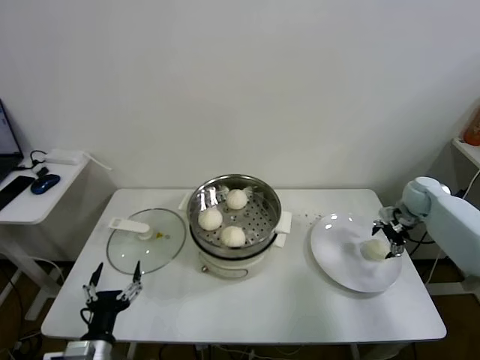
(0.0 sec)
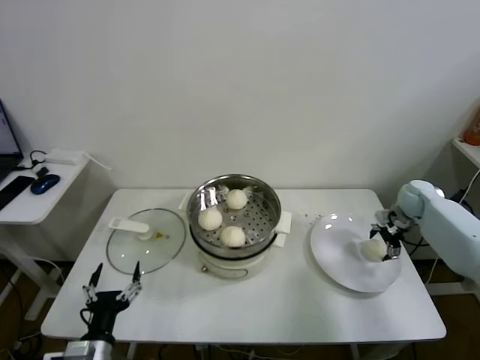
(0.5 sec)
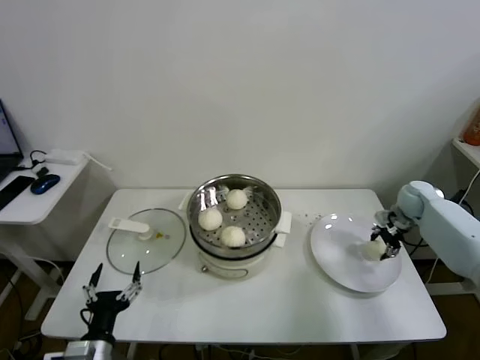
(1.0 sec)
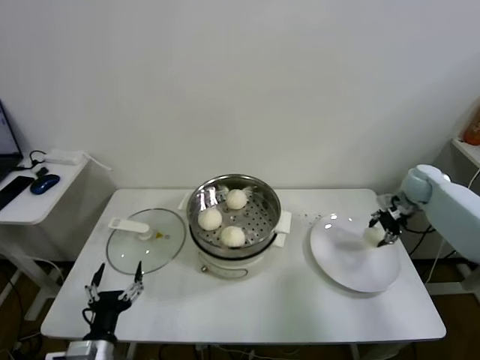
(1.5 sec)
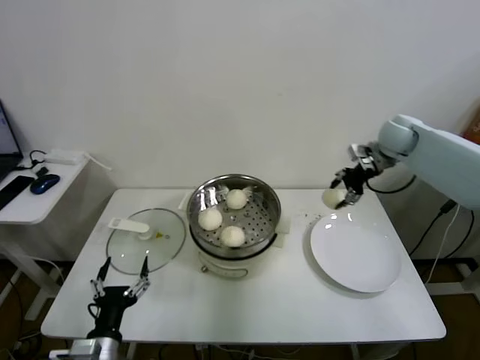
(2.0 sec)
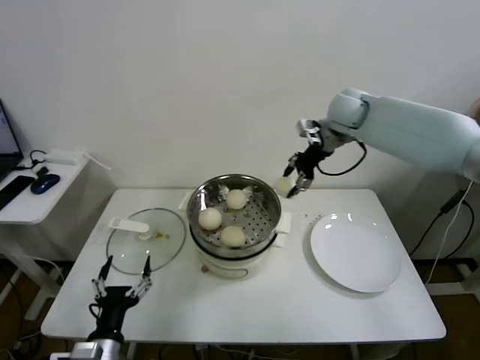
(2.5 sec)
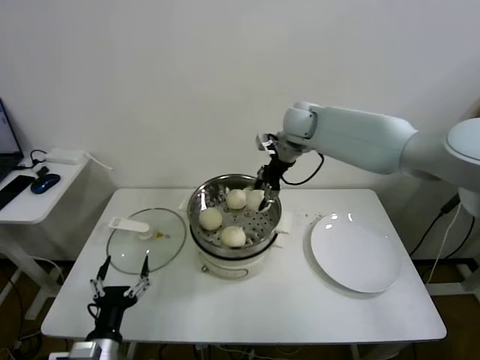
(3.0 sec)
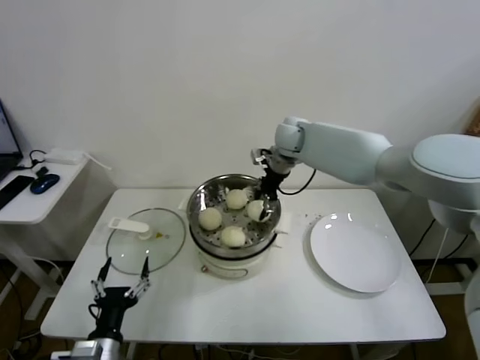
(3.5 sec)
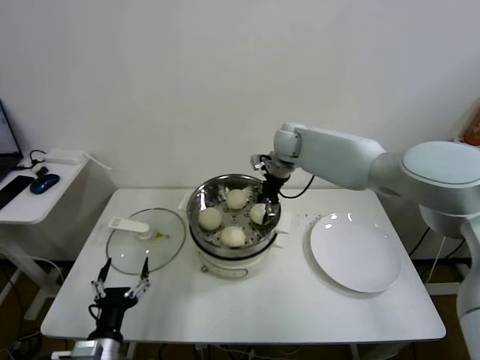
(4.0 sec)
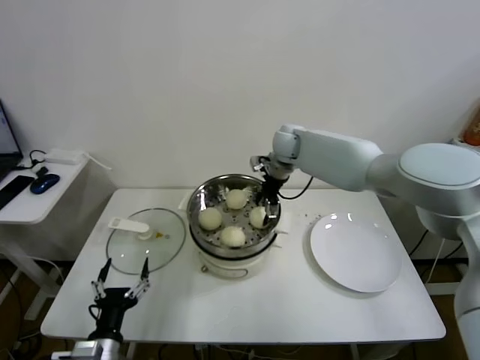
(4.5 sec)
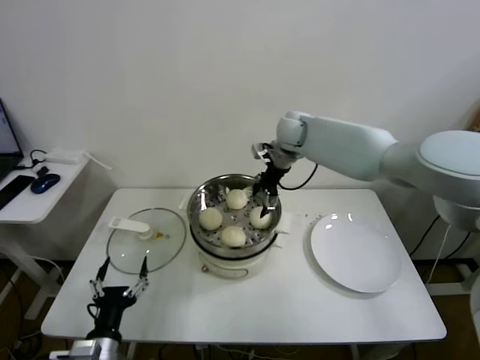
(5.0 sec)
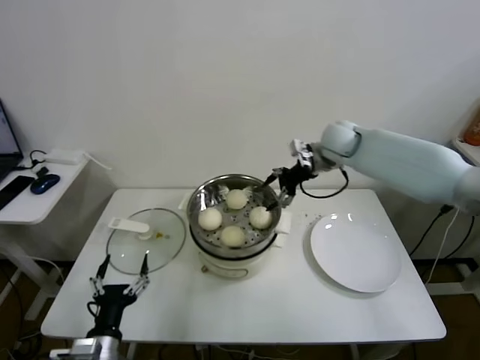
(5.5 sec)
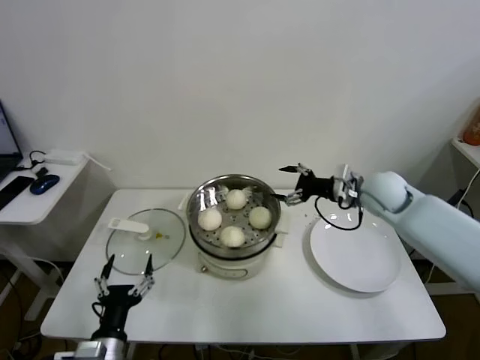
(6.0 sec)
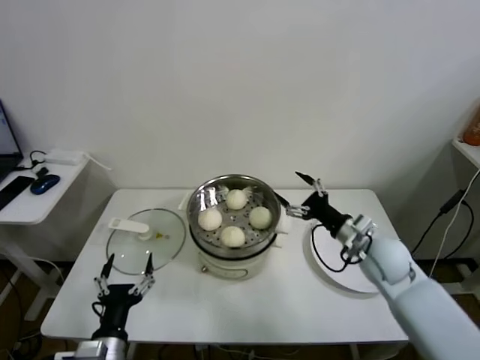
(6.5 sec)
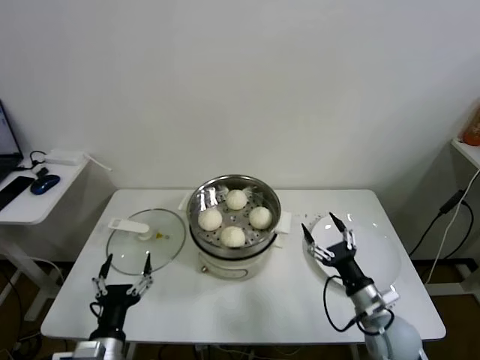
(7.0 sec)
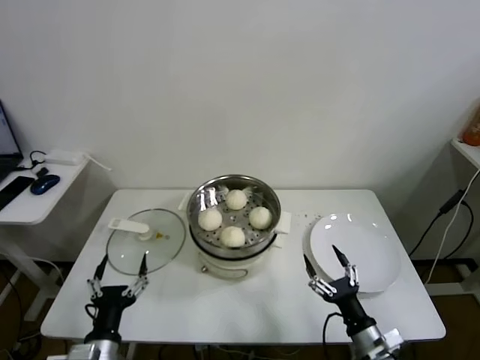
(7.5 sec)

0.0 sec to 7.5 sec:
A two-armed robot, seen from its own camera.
Task of the whole recording: take steamed baozi put them in steamer.
Step, 1.5 sec to 4.5 sec: Place the baozi on the steamer with right gripper.
0.0 sec to 2.0 sec: The right gripper travels upward and to the left by about 20 cm, and closes up.
2.0 sec to 4.0 sec: The right gripper is displaced to the left by approximately 25 cm.
4.0 sec to 5.5 sec: The right gripper travels to the right by roughly 10 cm, and opens up.
5.5 sec to 7.5 sec: The right gripper travels backward and downward by about 50 cm.

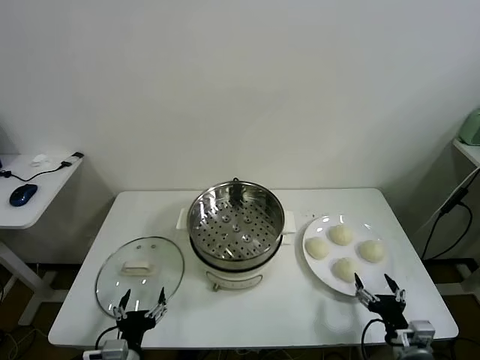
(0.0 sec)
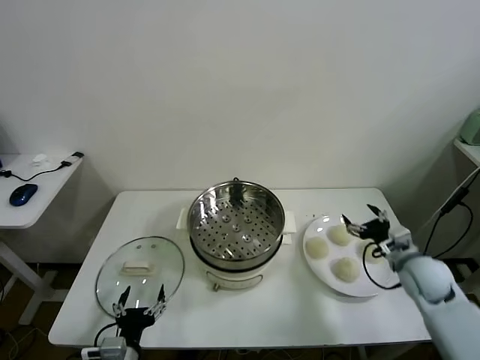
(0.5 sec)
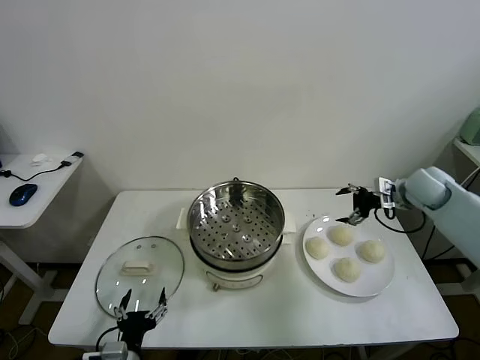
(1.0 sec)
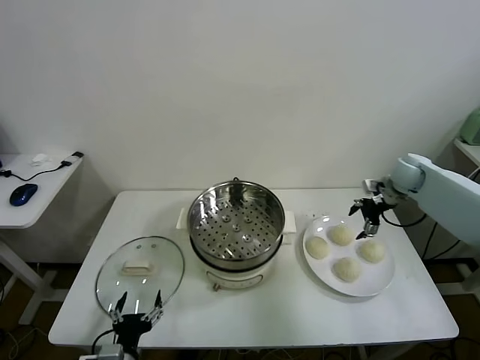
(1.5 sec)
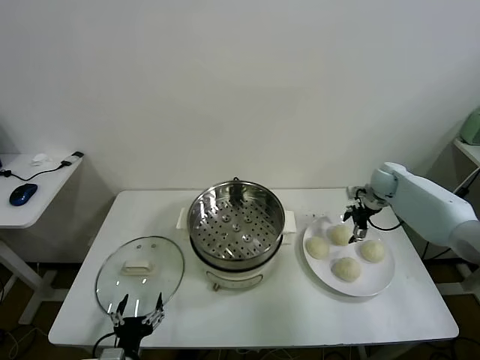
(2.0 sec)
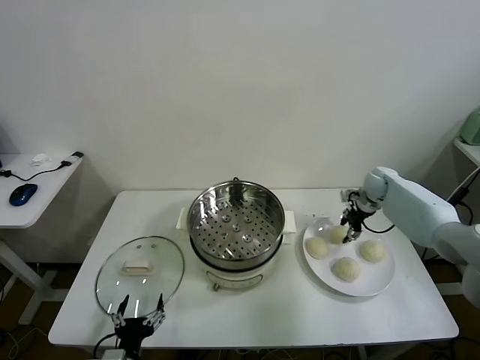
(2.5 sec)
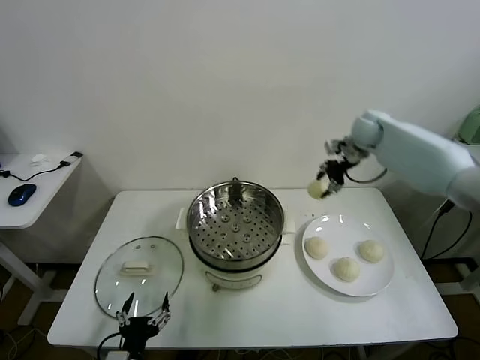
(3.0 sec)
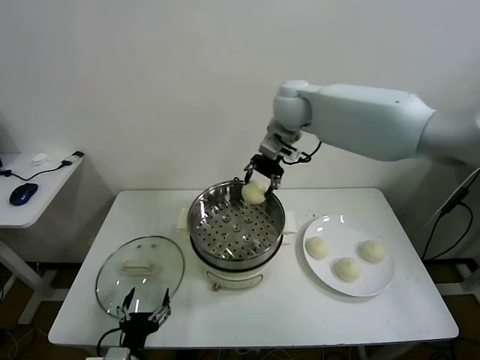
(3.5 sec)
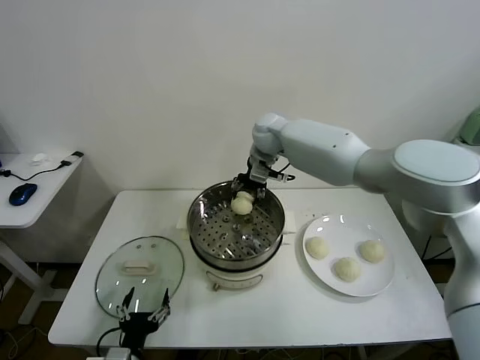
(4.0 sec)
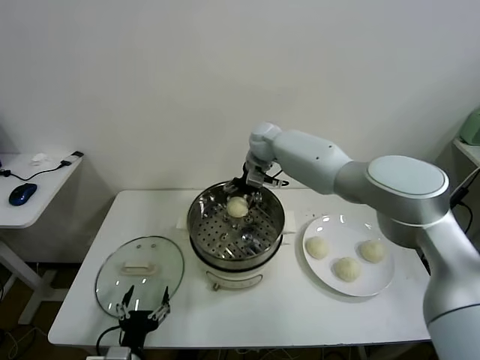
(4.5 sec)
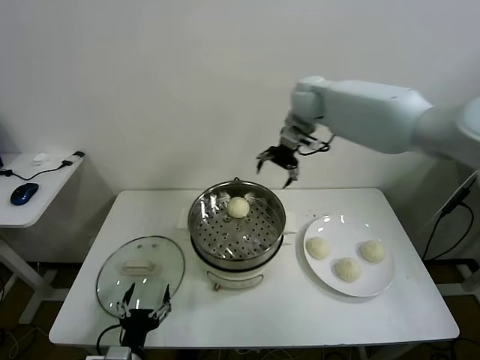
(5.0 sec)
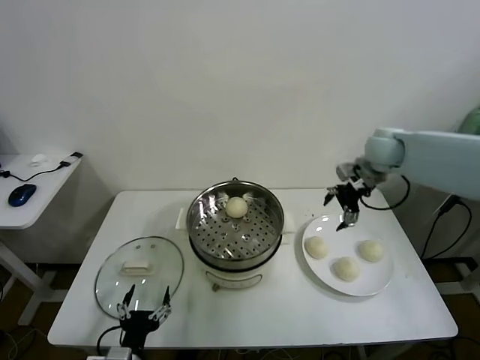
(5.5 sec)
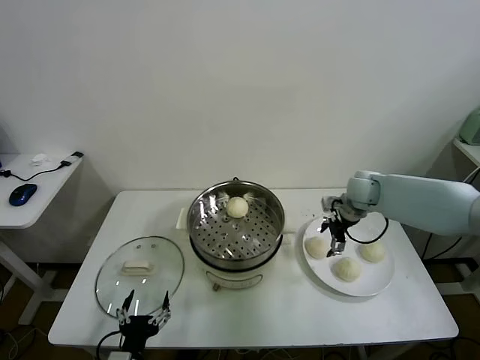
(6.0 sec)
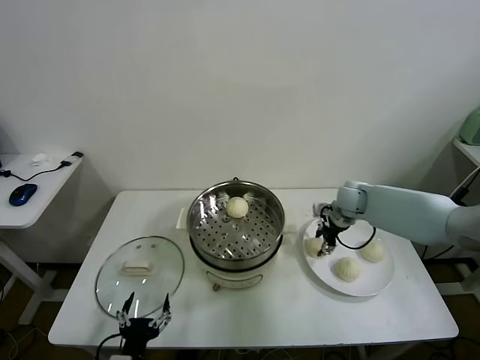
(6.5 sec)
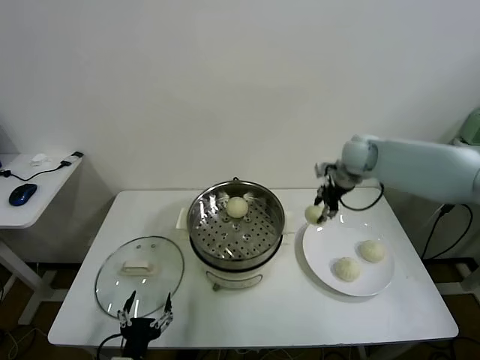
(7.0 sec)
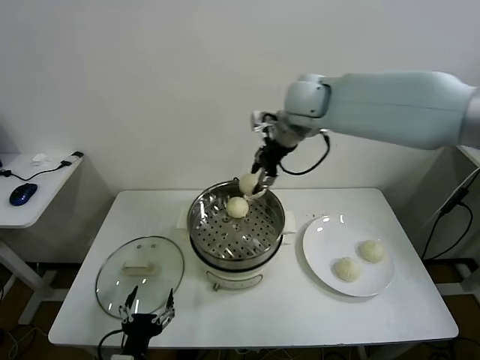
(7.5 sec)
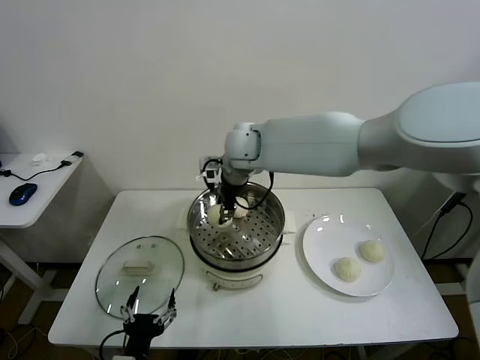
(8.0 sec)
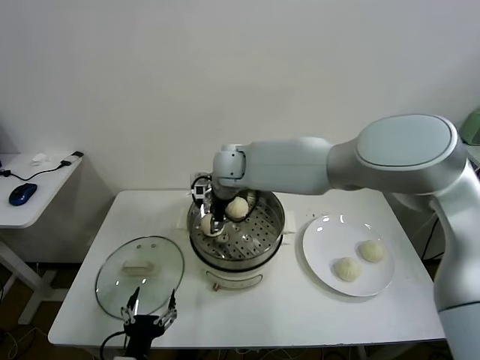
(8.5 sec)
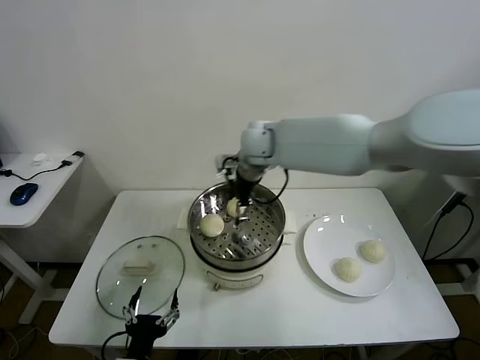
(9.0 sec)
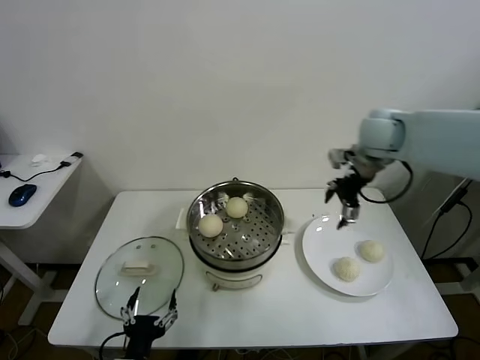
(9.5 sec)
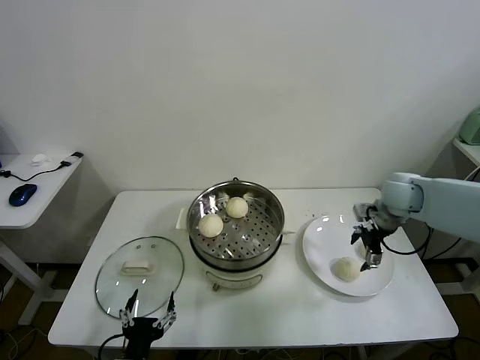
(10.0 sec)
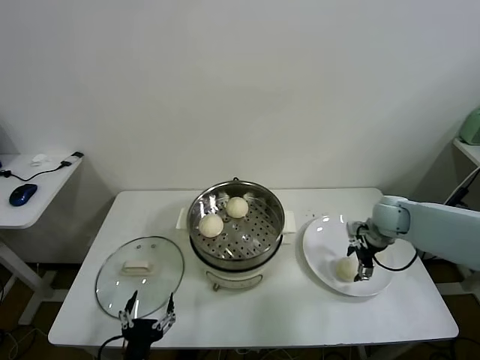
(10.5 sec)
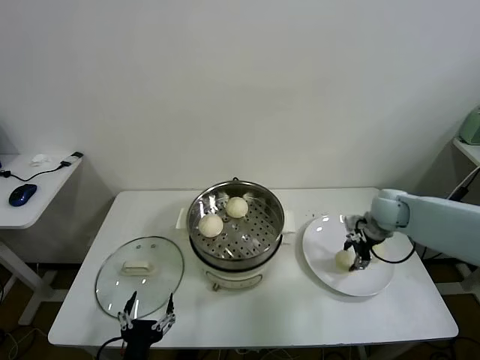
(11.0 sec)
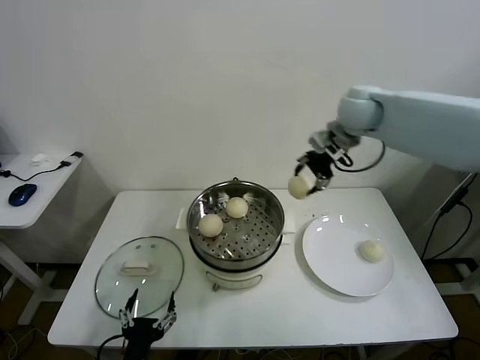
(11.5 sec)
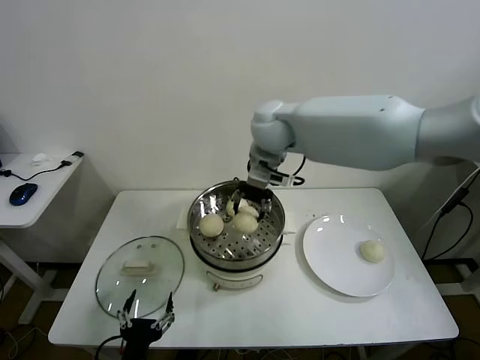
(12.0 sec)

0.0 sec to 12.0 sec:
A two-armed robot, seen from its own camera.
Task of the whole recording: take steamed baozi put them in steamer.
Step, 0.0 sec to 2.5 sec: Grasp the baozi in the plate with right gripper.
Step, 3.0 sec to 4.5 sec: Place the baozi on the steamer with right gripper.
Step, 5.0 sec to 6.5 sec: Grasp the baozi in the plate with right gripper.
Step, 7.0 sec to 8.5 sec: Place the baozi on the steamer with right gripper.
Step, 9.0 sec to 10.5 sec: Grasp the baozi in the plate with right gripper.
2.0 sec to 4.0 sec: The right gripper travels to the left and upward by roughly 35 cm, and closes up.
4.0 sec to 6.0 sec: The right gripper travels to the right and downward by some 25 cm, and opens its fingers.
6.0 sec to 8.0 sec: The right gripper moves to the left and upward, about 35 cm, and closes its fingers.
8.0 sec to 10.0 sec: The right gripper moves to the right, roughly 35 cm, and opens its fingers.
10.0 sec to 12.0 sec: The right gripper heads to the left and upward, covering about 35 cm, and closes up.

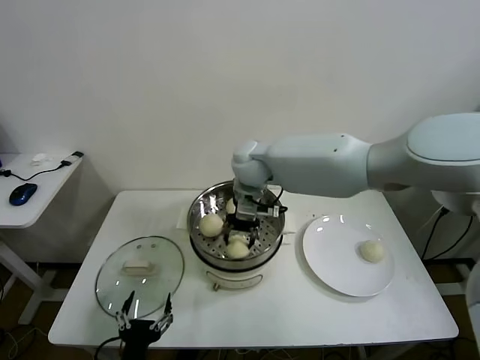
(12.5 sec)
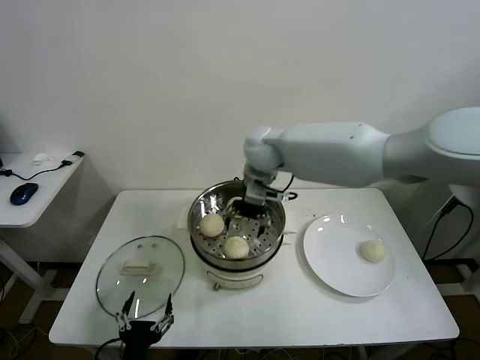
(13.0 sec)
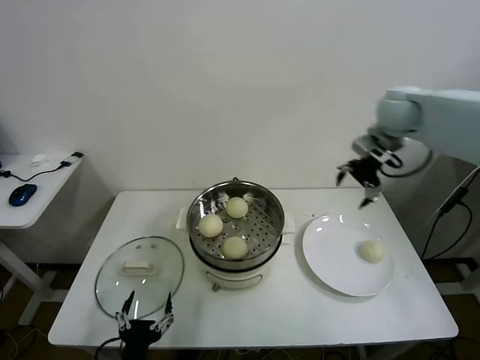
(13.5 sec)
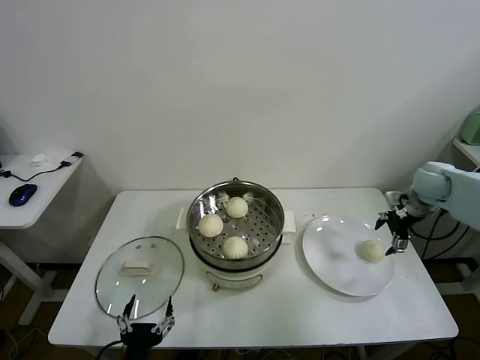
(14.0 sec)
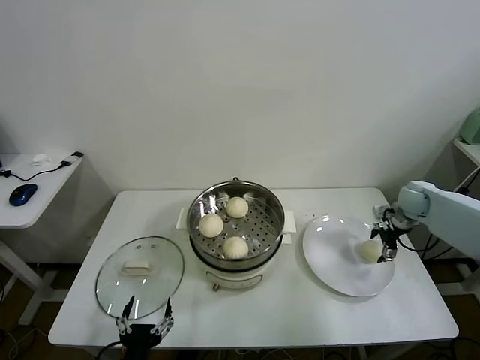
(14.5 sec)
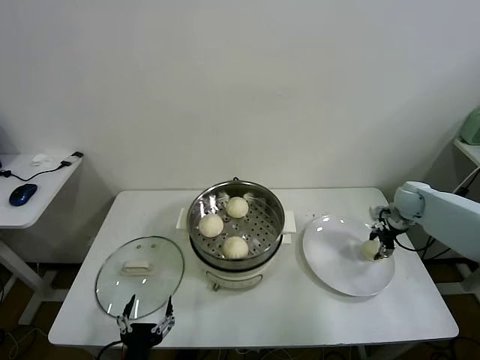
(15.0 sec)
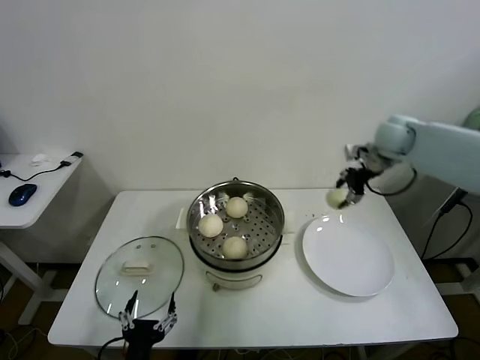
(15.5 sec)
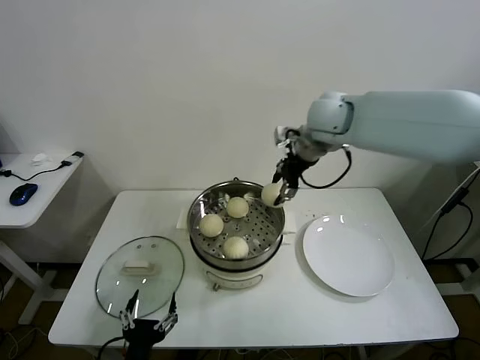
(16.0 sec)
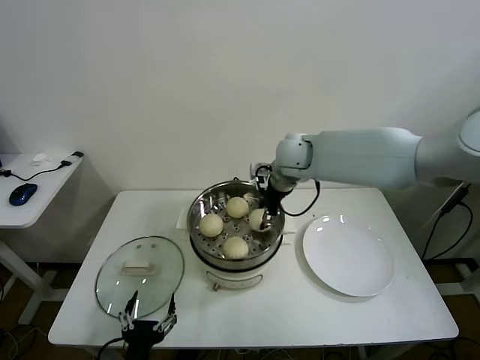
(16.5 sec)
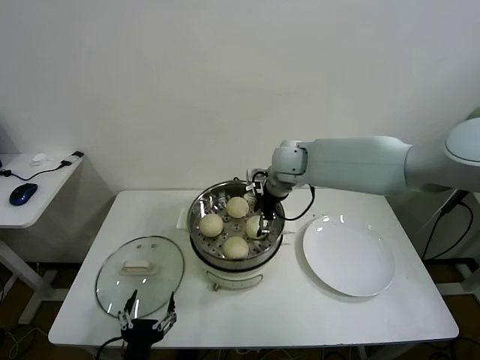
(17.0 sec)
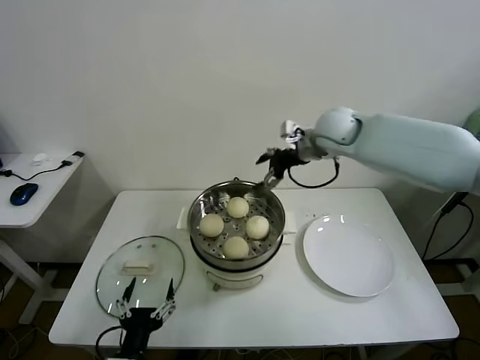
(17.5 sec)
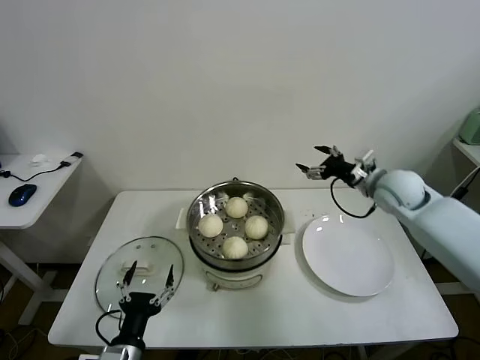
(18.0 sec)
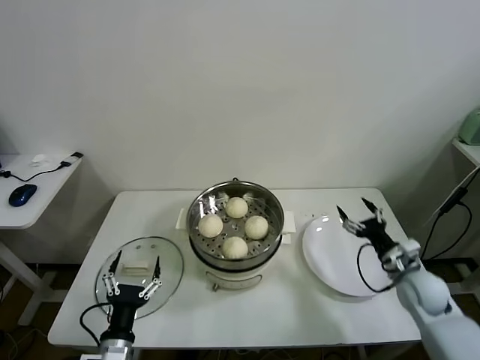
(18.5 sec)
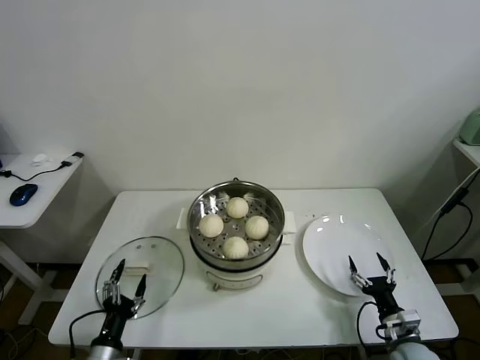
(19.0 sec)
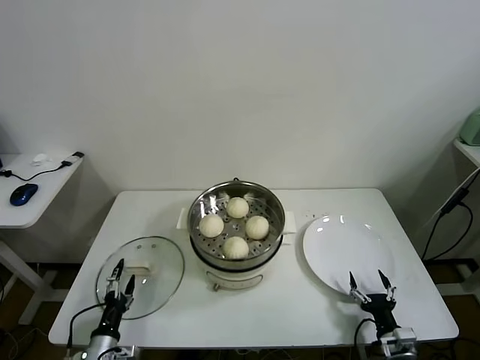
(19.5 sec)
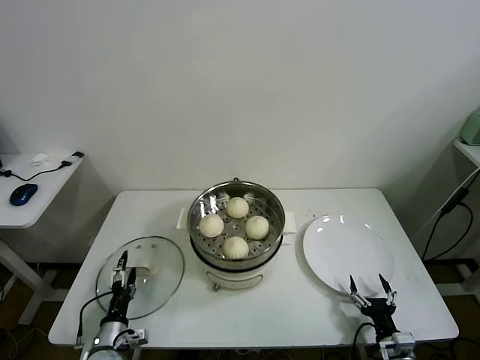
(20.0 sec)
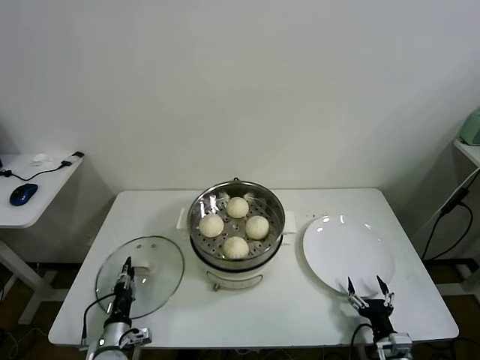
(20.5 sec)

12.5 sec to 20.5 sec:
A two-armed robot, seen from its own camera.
Task of the whole recording: take steamed baozi put them in steamer.
Step, 13.0 sec to 14.5 sec: Grasp the baozi in the plate with right gripper.
Step, 15.0 sec to 17.0 sec: Place the baozi on the steamer with right gripper.
12.5 sec to 14.5 sec: The right gripper shifts approximately 40 cm to the right, and opens its fingers.
14.5 sec to 16.5 sec: The right gripper heads to the left and upward, covering about 35 cm, and closes its fingers.
16.5 sec to 18.5 sec: The right gripper shifts some 40 cm to the right, downward and backward, and opens up. Meanwhile the left gripper heads forward, covering approximately 5 cm.
18.5 sec to 20.5 sec: The right gripper shifts roughly 20 cm backward and downward, while the left gripper shifts approximately 15 cm downward, forward and to the left, and closes up.
